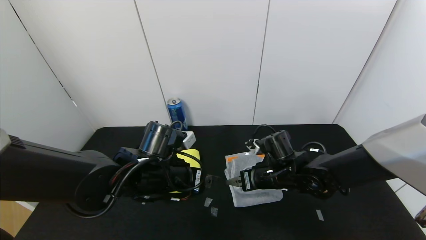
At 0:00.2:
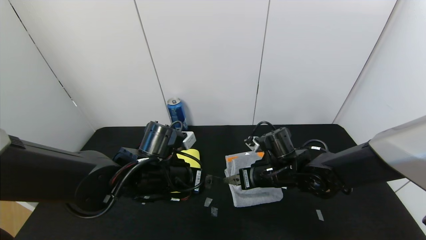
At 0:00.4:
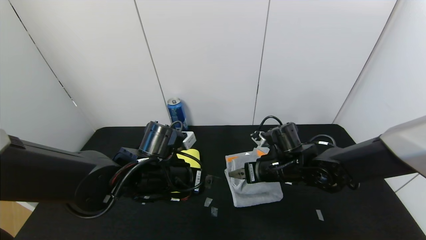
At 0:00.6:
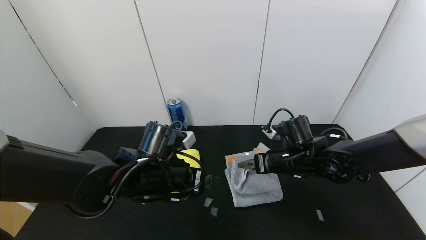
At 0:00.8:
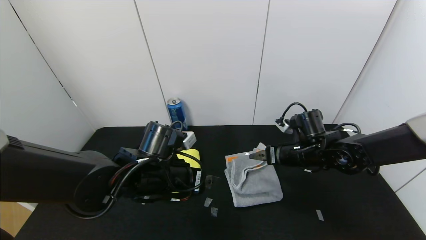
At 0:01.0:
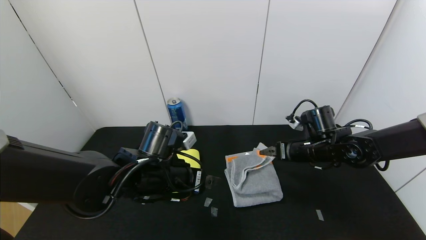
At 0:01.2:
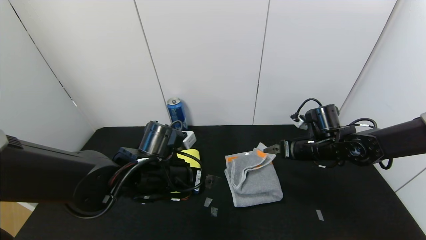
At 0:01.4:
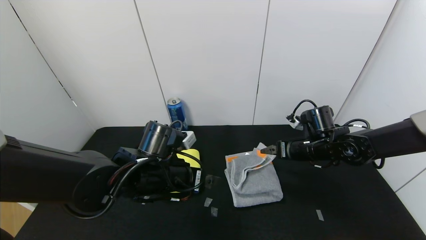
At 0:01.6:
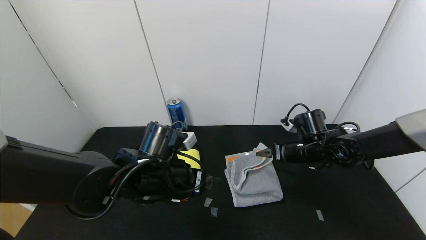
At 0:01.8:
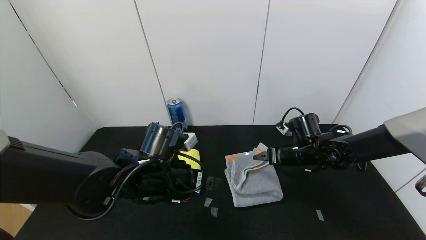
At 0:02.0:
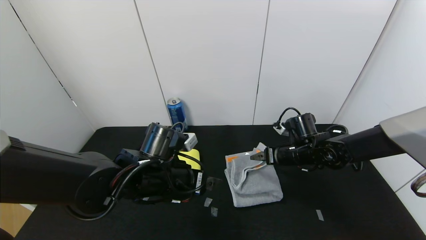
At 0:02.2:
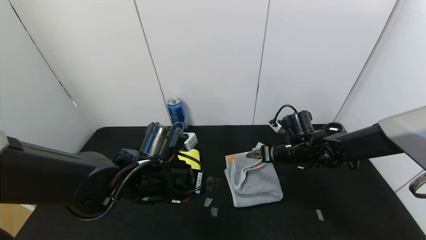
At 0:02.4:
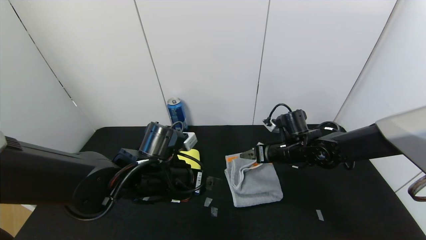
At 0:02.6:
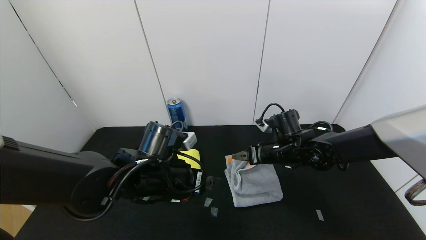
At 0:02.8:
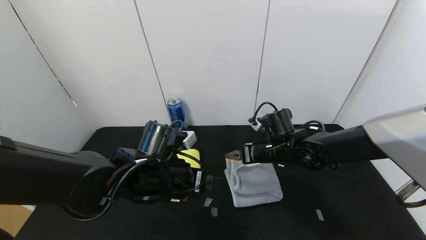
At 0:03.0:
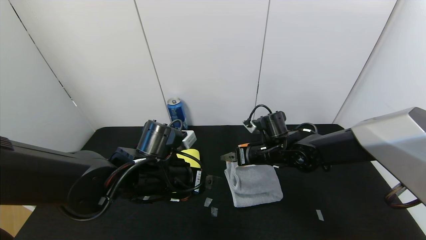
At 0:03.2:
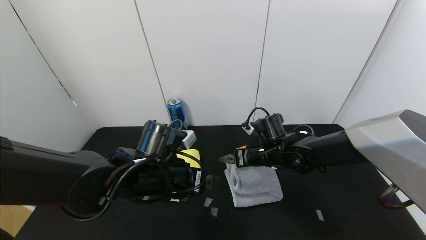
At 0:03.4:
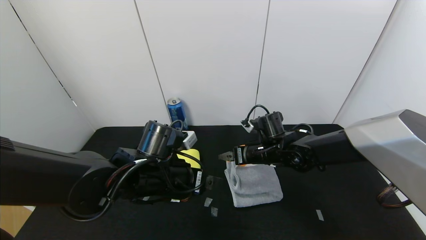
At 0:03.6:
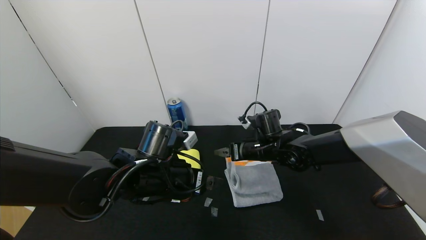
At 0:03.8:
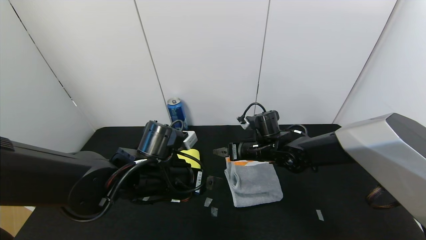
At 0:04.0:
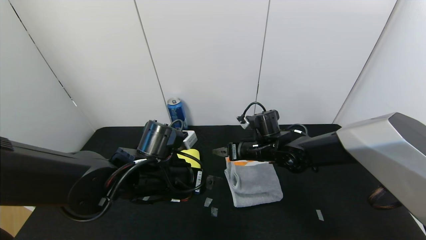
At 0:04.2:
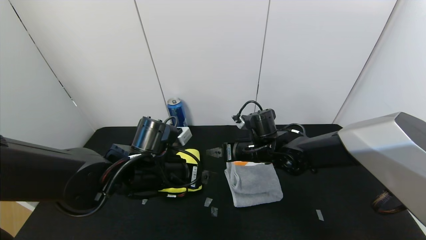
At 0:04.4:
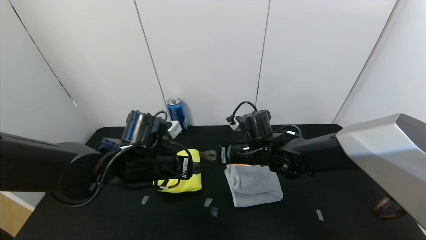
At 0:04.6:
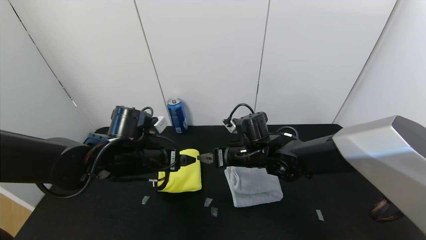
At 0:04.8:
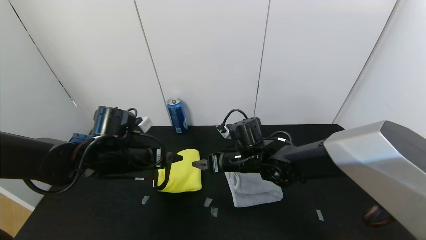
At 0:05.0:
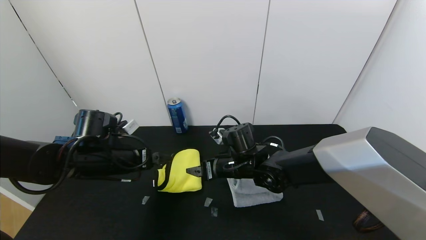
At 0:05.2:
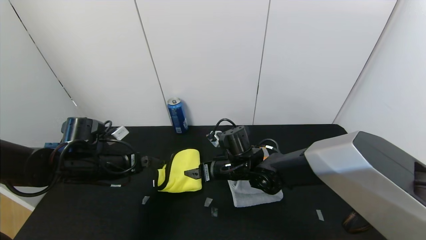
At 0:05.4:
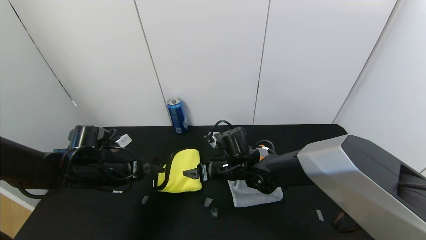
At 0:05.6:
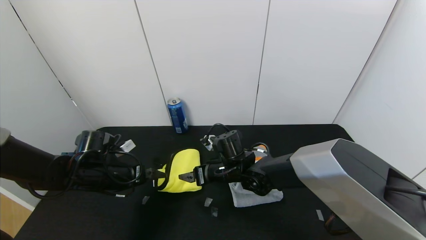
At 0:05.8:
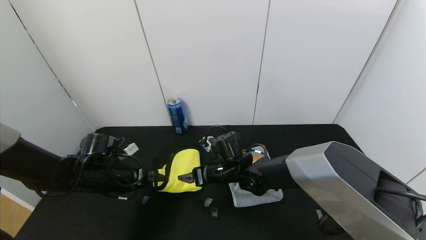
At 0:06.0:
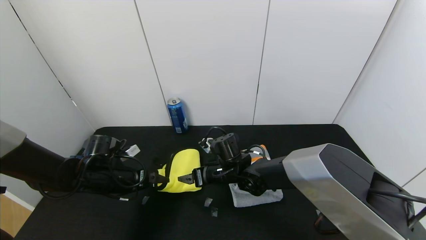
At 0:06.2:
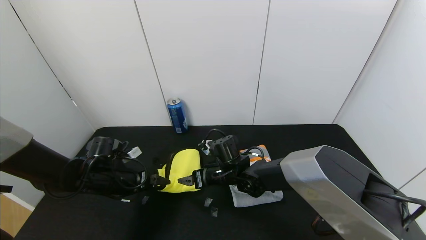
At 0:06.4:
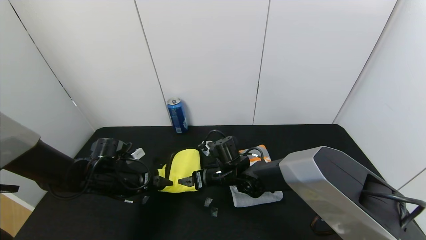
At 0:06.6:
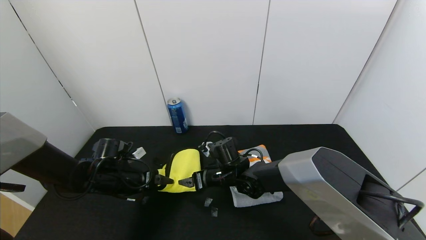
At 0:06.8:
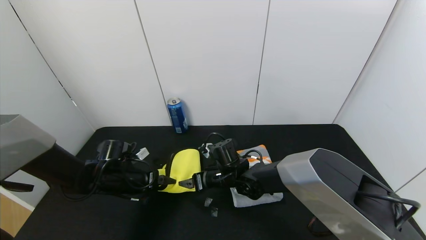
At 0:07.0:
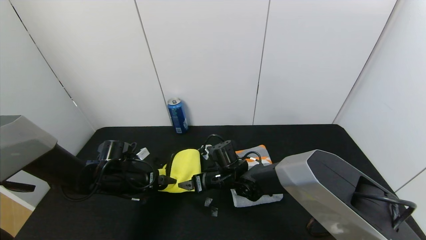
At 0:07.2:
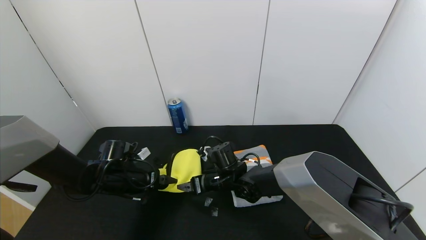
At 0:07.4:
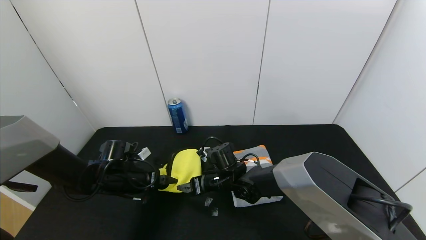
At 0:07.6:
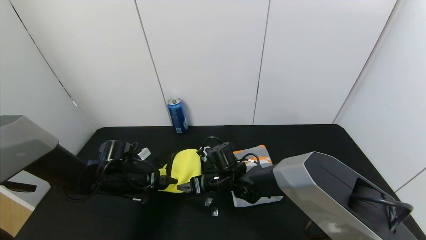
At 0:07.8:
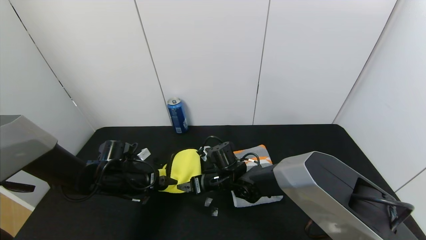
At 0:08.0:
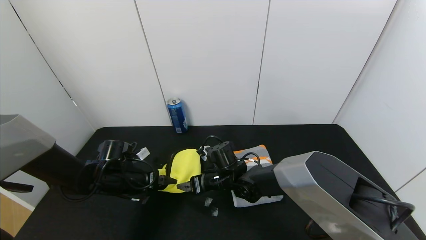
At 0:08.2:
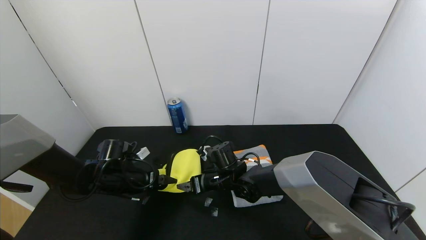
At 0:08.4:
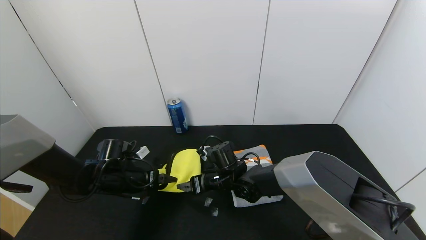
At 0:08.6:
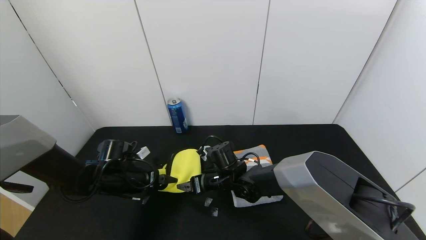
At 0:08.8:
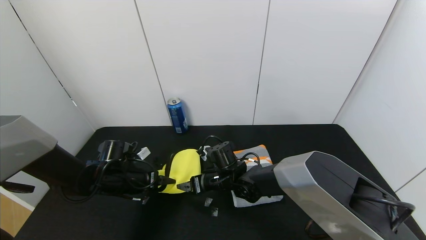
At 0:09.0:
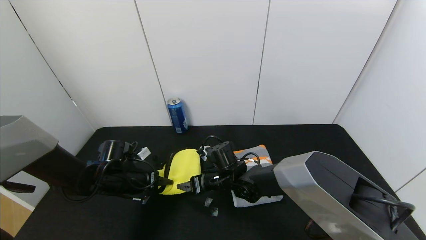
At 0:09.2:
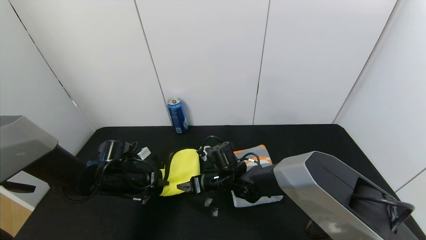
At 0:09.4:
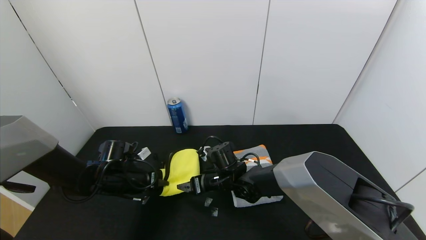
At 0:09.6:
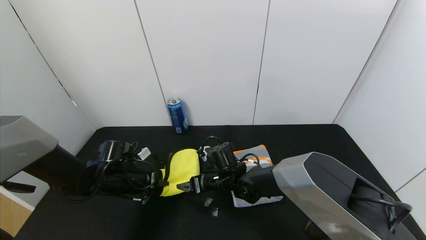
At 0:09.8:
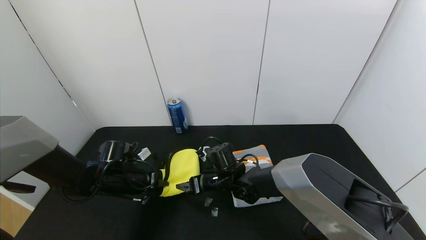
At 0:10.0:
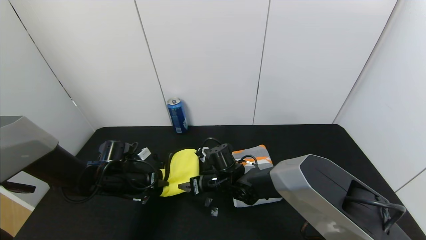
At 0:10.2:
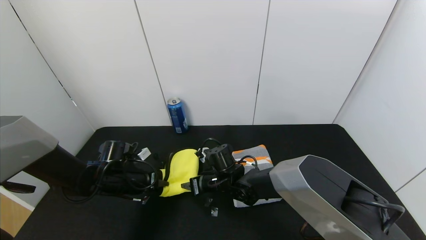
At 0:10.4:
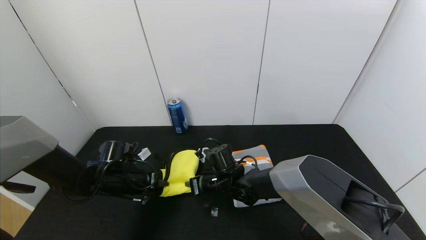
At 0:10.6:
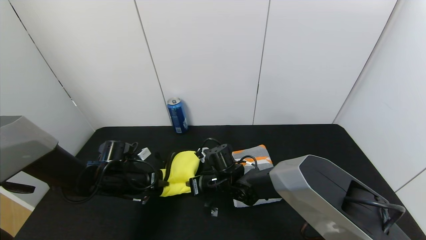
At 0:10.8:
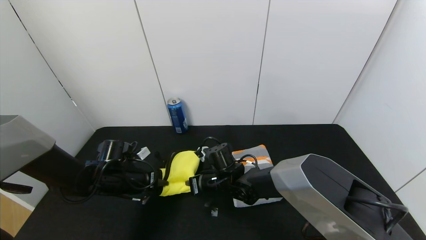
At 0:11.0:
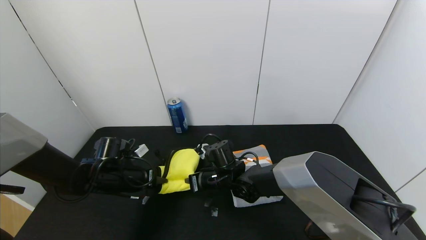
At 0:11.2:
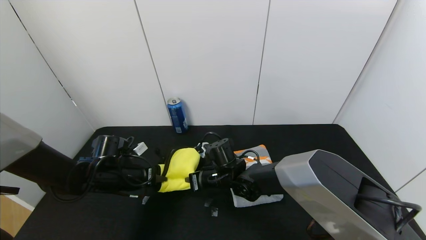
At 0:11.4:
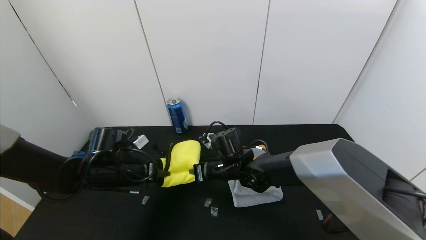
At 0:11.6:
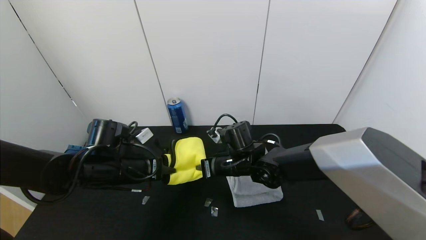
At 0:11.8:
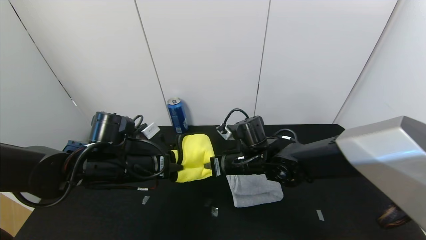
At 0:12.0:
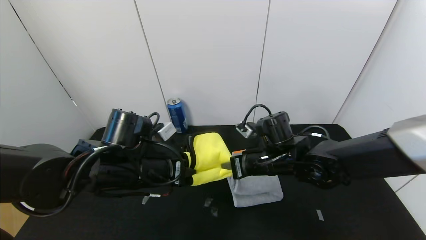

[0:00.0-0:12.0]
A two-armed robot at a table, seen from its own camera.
Task of the whole recording: Use the gripper to fold the yellow towel and grey towel in half twice,then put the yellow towel on the grey towel.
Step, 0:00.6 to 0:03.8: Press the gray towel with the right gripper.
0:00.0 to 0:01.6: The right gripper moves to the right and forward, about 10 cm.
0:01.6 to 0:03.0: The right gripper goes some 10 cm to the left.
0:03.0 to 0:04.4: The grippers stay close to where they were, moving slightly.
0:04.4 to 0:06.0: The right gripper moves to the left and downward, approximately 10 cm, while the left gripper moves to the left and downward, approximately 15 cm.
0:06.0 to 0:07.6: The grippers stay close to where they were, moving slightly.
0:07.6 to 0:09.0: The left gripper closes.
0:09.0 to 0:10.4: The left gripper closes, while the right gripper closes.
0:10.4 to 0:12.0: The left gripper moves upward, to the right and backward, approximately 20 cm, while the right gripper heads to the right and upward, covering some 15 cm.

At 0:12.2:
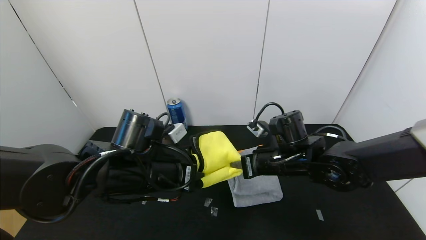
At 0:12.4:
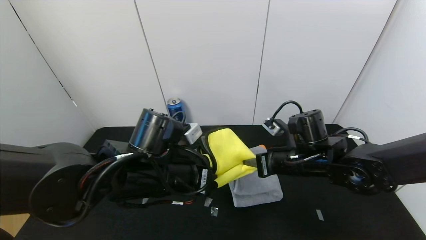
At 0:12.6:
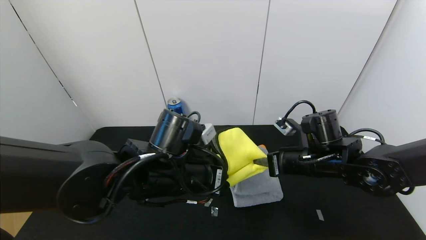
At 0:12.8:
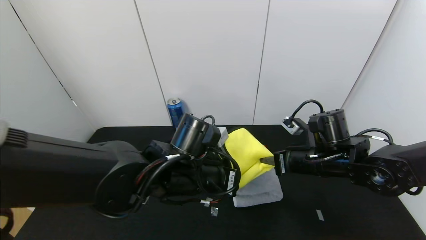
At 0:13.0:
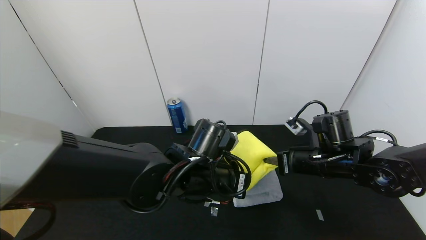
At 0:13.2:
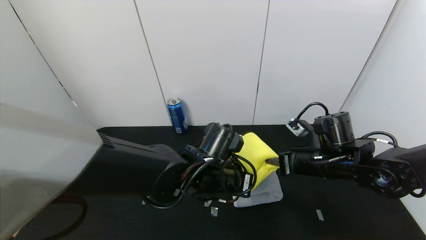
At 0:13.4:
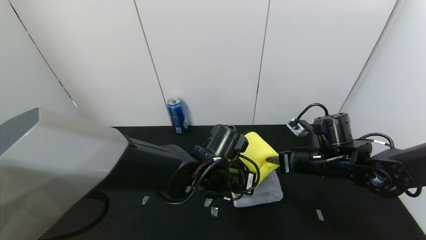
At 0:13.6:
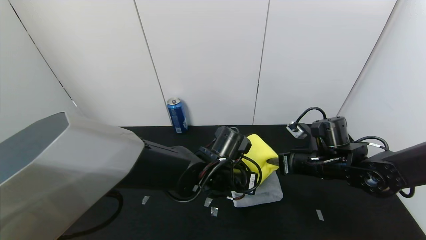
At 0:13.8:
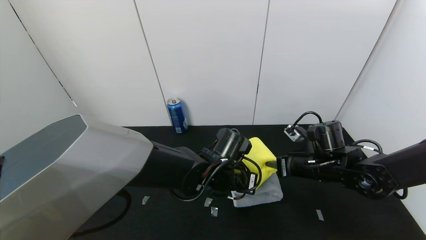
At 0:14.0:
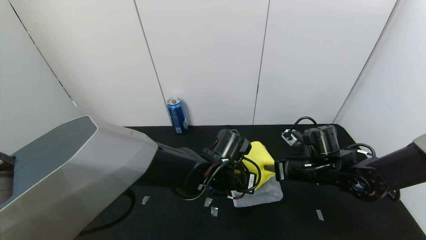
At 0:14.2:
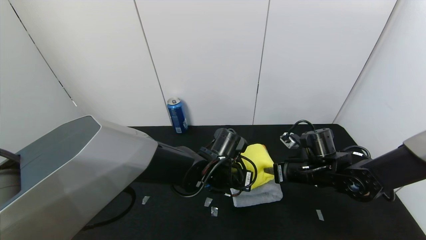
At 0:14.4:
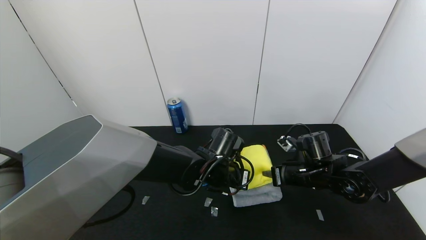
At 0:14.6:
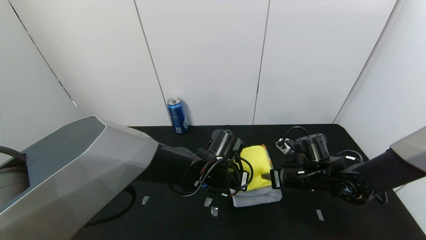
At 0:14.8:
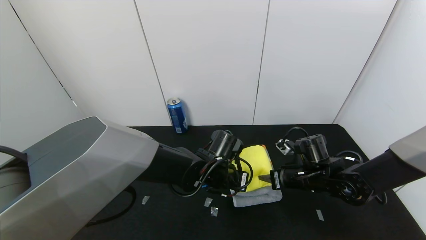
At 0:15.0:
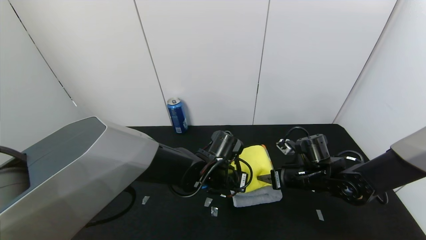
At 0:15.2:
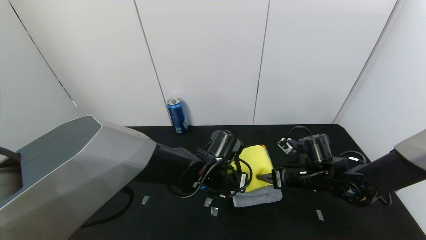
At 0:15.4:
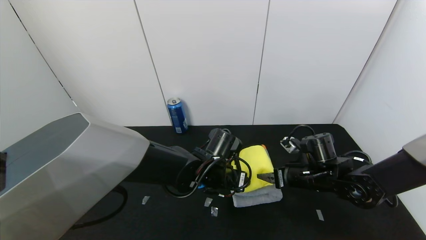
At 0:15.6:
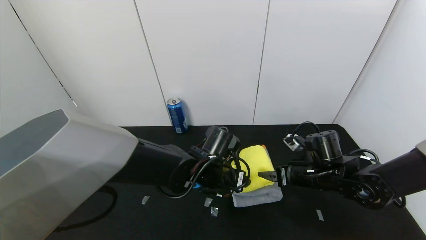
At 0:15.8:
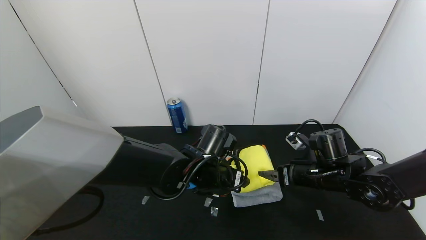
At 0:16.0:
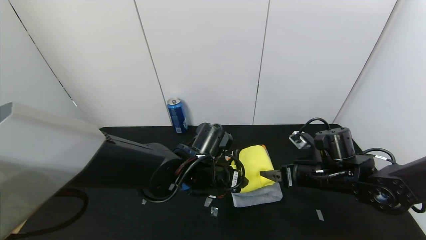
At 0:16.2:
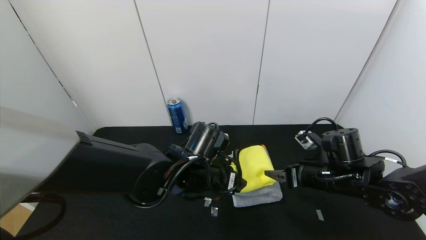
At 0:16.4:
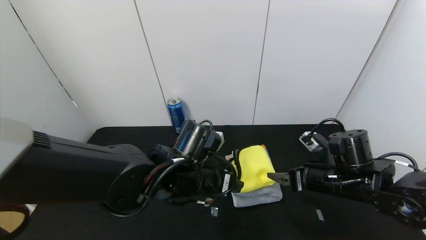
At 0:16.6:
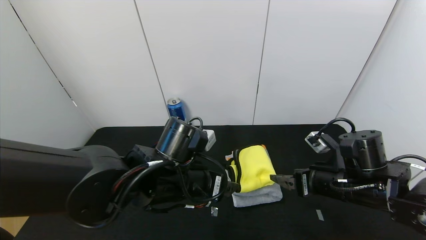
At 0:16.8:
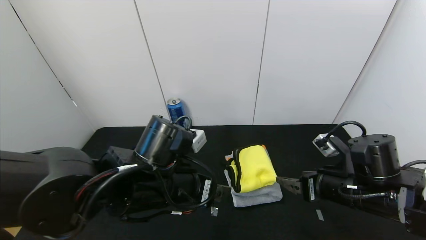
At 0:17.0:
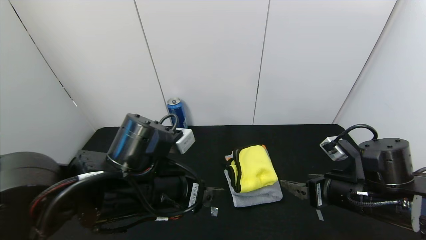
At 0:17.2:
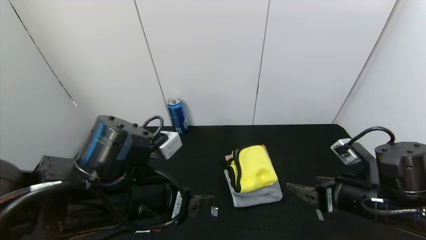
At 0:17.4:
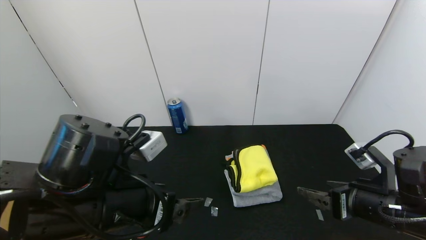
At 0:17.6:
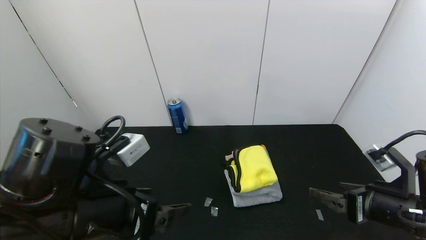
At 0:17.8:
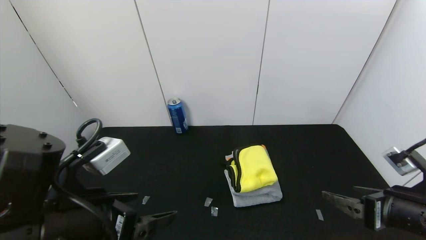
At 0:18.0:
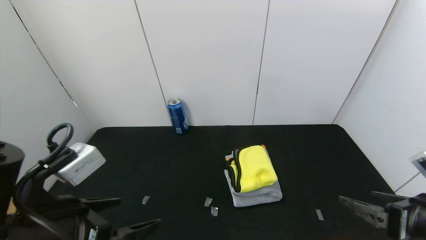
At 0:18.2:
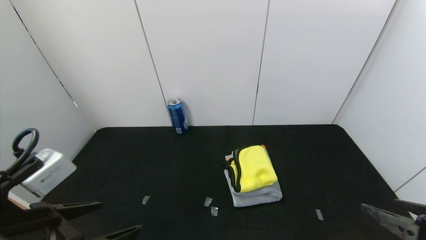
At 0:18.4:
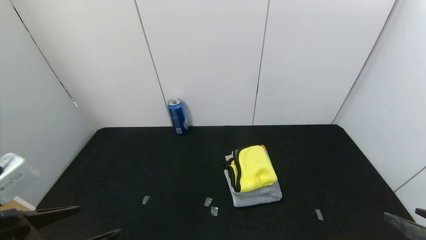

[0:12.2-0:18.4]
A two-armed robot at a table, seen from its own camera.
Task of the whole recording: Use the gripper to fold the yellow towel and grey towel in half twice,then put the yellow towel on the grey towel.
Step, 0:12.2 to 0:15.8: Place the yellow towel on the gray towel with the left gripper.
Step, 0:12.2 to 0:15.8: Place the yellow towel on the gray towel with the right gripper.
0:12.2 to 0:13.8: The right gripper travels to the right by approximately 5 cm. The left gripper goes approximately 15 cm to the right, downward and forward.
0:13.8 to 0:15.4: The right gripper opens its fingers; the left gripper opens.
0:15.4 to 0:16.8: The right gripper travels backward and upward by roughly 10 cm; the left gripper goes roughly 15 cm backward, upward and to the left.
0:16.8 to 0:18.4: The left gripper shifts roughly 20 cm to the left and backward. Meanwhile the right gripper shifts approximately 20 cm backward and to the right.
